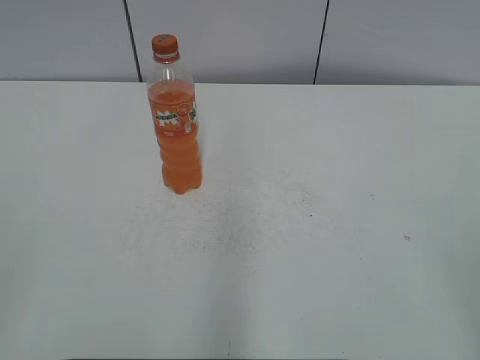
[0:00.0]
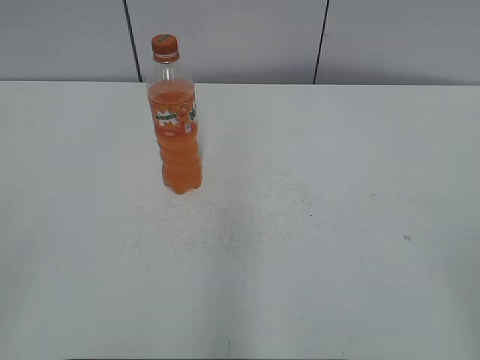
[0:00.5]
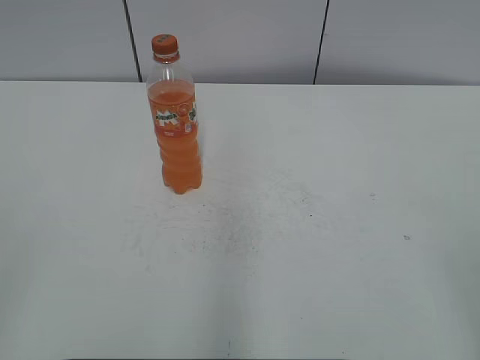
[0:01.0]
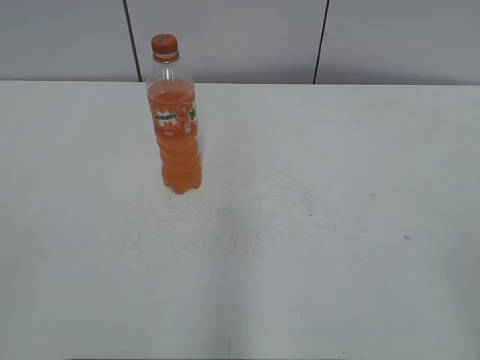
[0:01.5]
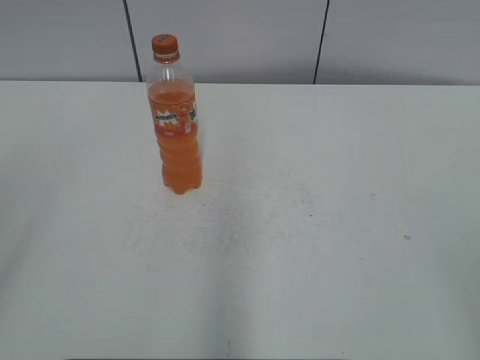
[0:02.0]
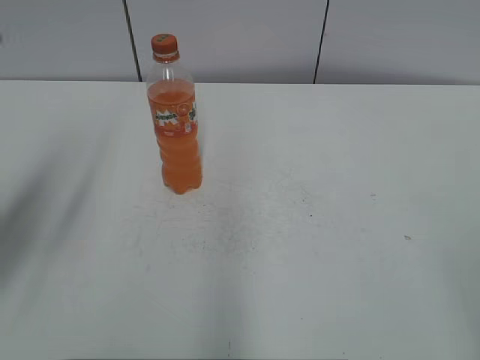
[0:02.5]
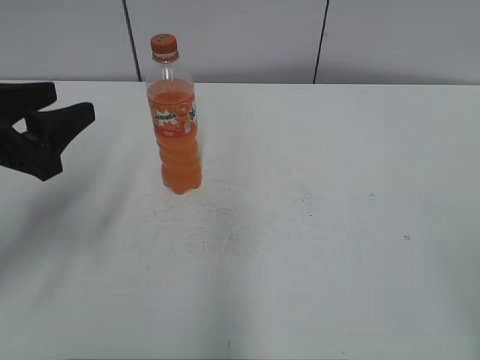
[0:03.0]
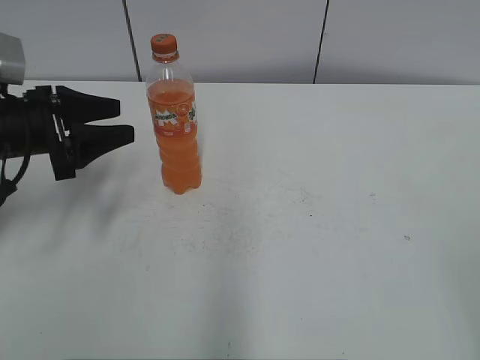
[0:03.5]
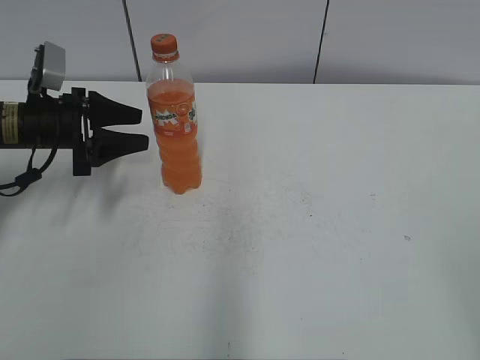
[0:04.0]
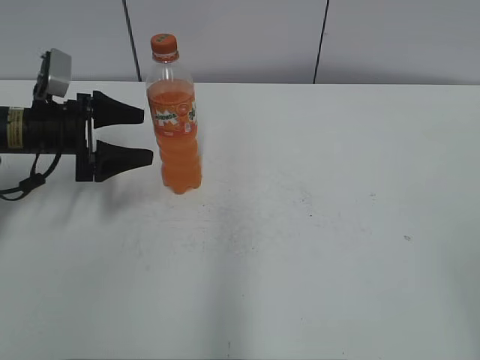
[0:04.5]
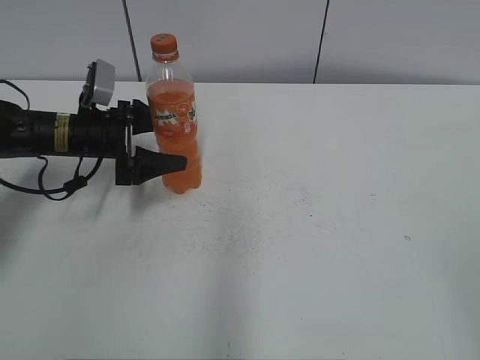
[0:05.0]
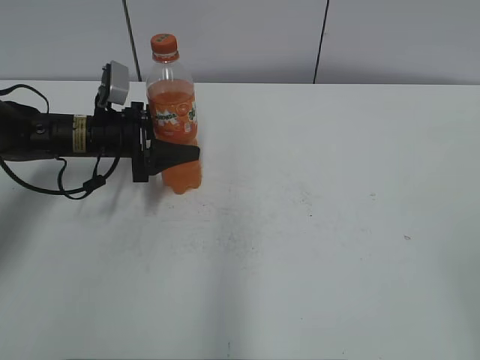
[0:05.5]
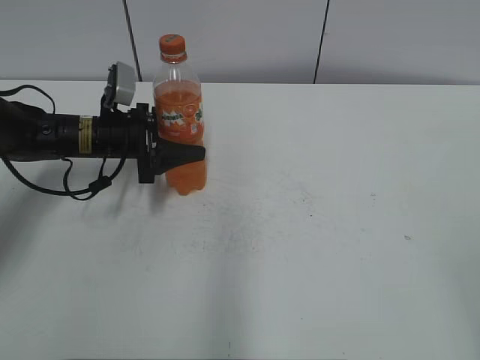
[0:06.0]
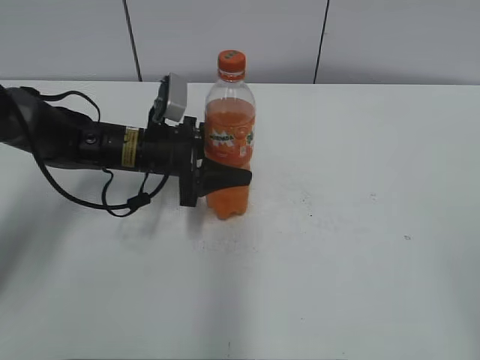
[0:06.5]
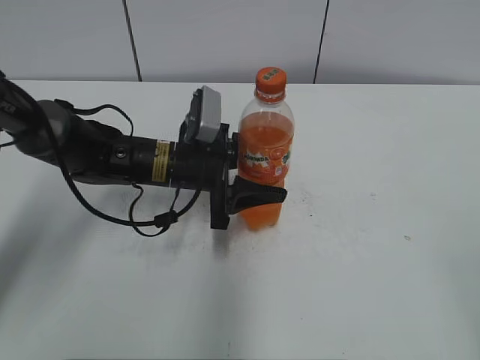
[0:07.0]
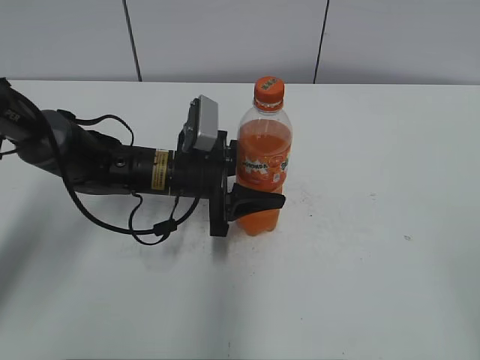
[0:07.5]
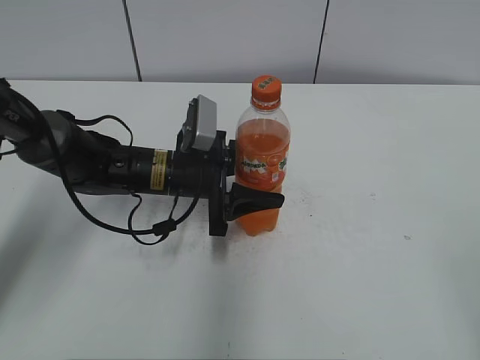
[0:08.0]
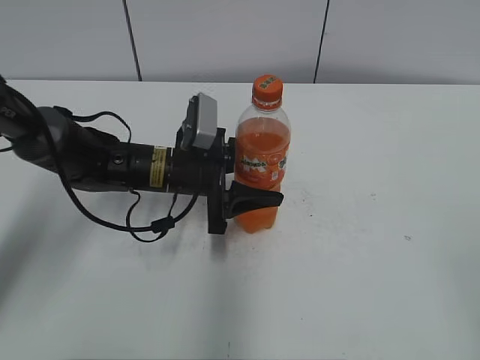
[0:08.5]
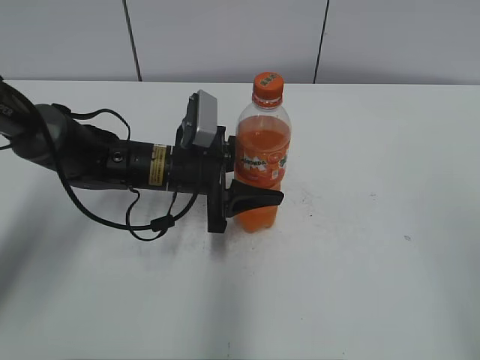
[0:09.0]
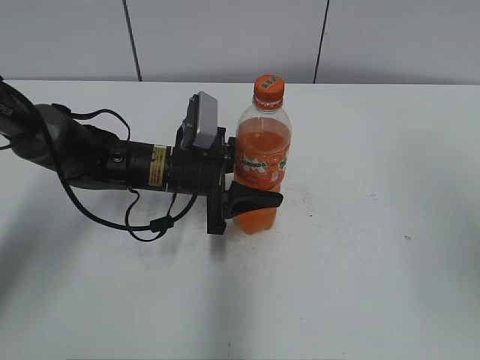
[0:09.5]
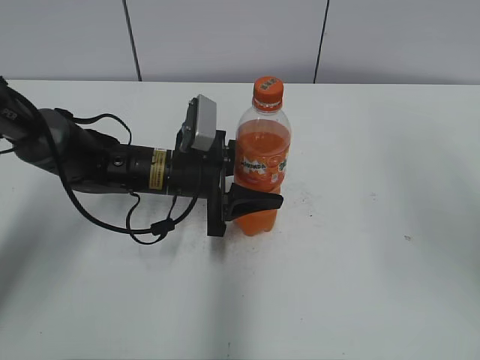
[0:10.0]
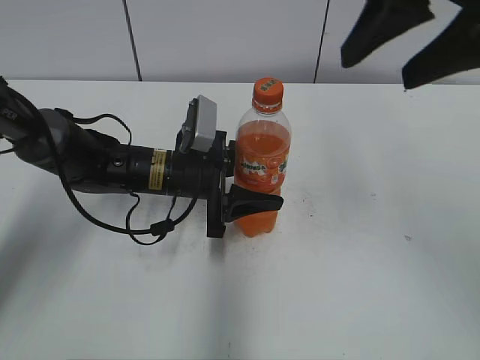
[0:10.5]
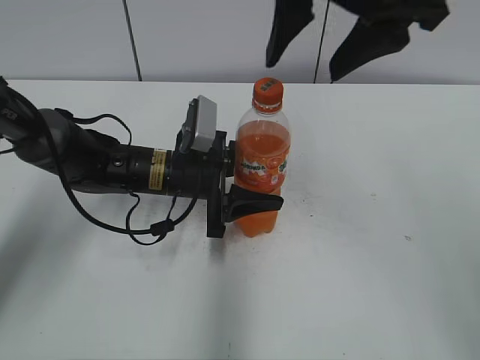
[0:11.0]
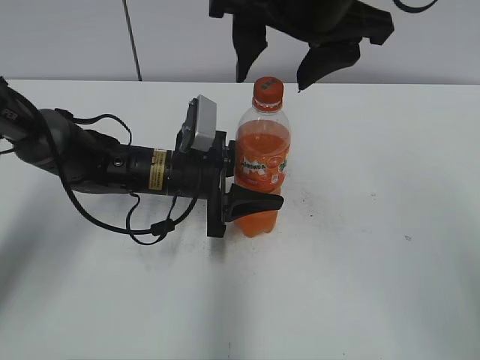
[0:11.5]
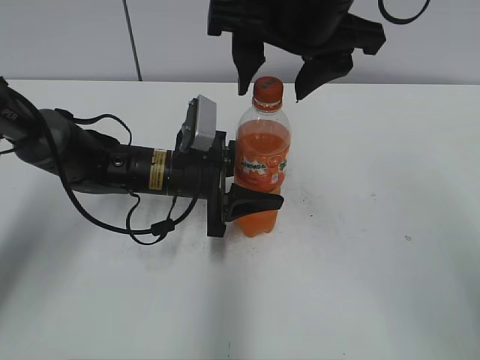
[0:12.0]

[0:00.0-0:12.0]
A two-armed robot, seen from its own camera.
Step, 0:00.0 to 0:05.0: Grab the Mirinda with the left hand.
Step, 0:05.5 to 0:06.5: Move the Mirinda from left to right.
0:02.0 to 0:04.0: The left gripper travels forward and downward by some 40 cm.
0:04.0 to 0:06.0: The left gripper is displaced to the right by approximately 5 cm, and opens and closes again.
0:06.0 to 0:08.0: The left gripper goes some 10 cm to the right and backward.
0:08.0 to 0:10.0: The right gripper moves forward and upward, approximately 20 cm.
0:10.0 to 0:12.0: The right gripper goes roughly 25 cm to the left and forward.

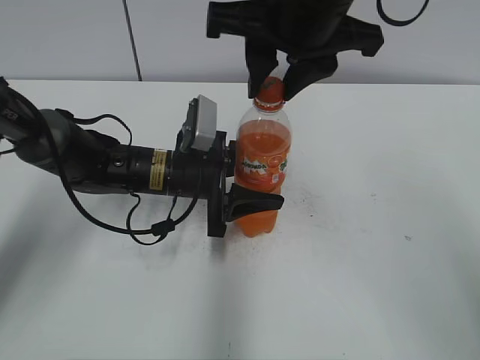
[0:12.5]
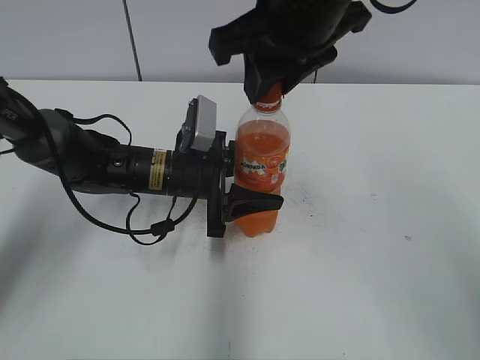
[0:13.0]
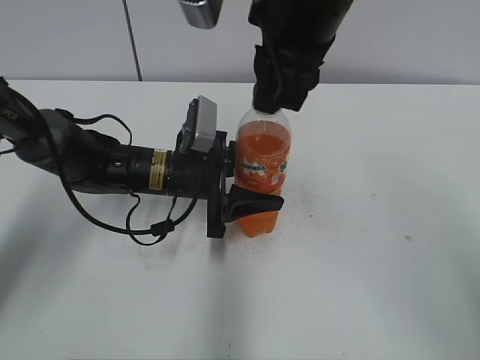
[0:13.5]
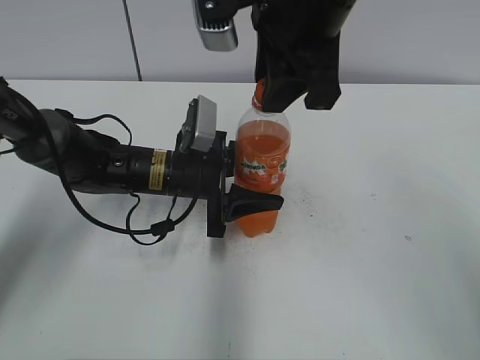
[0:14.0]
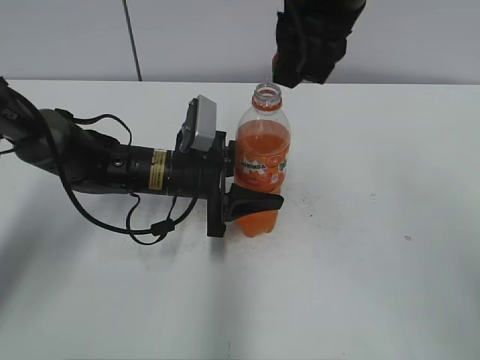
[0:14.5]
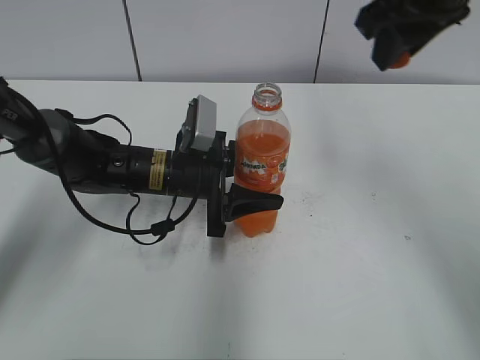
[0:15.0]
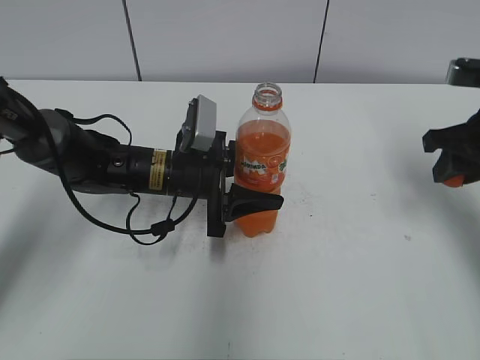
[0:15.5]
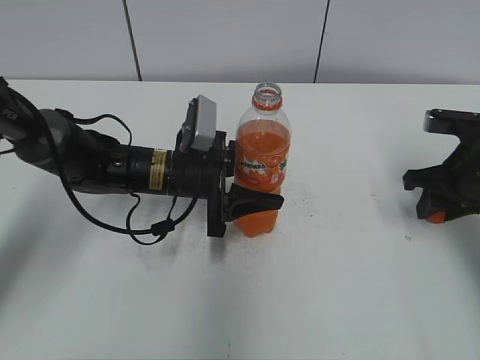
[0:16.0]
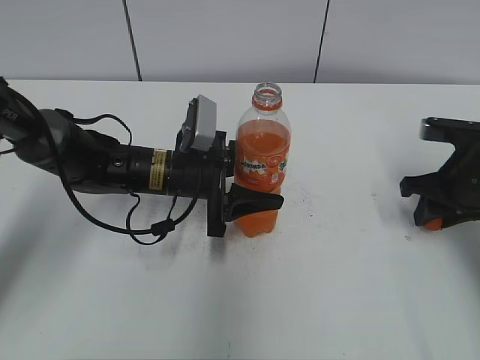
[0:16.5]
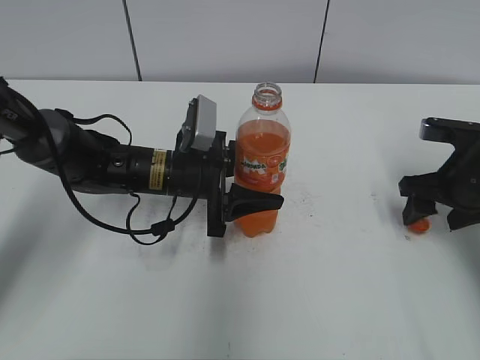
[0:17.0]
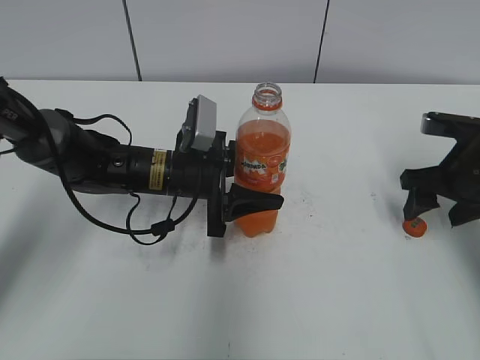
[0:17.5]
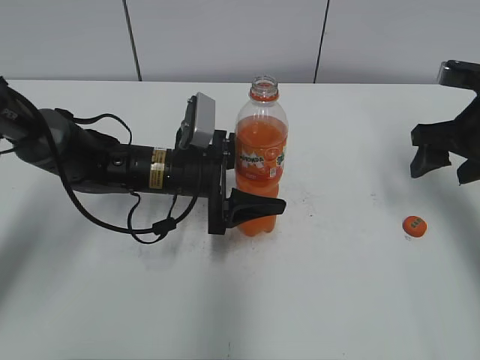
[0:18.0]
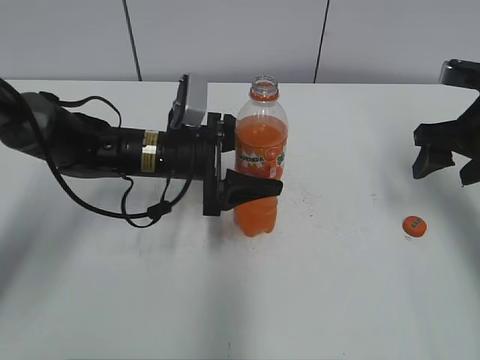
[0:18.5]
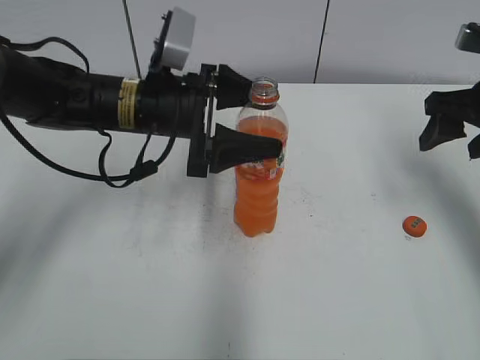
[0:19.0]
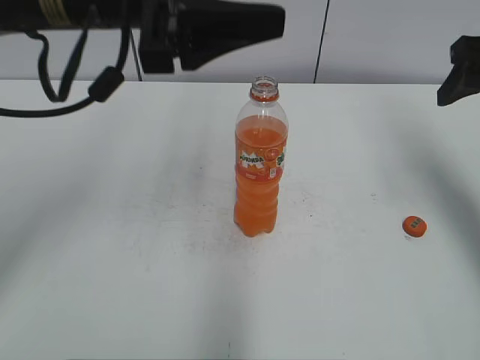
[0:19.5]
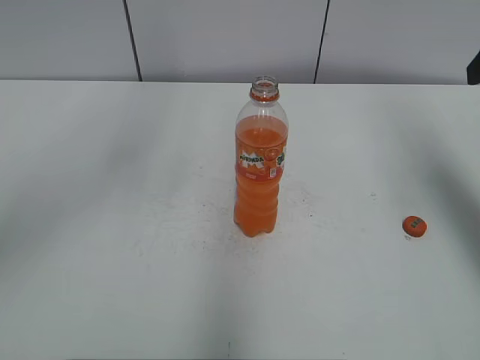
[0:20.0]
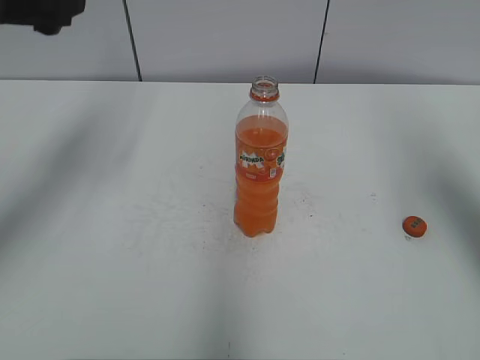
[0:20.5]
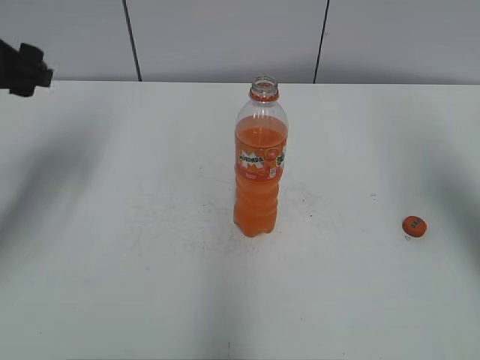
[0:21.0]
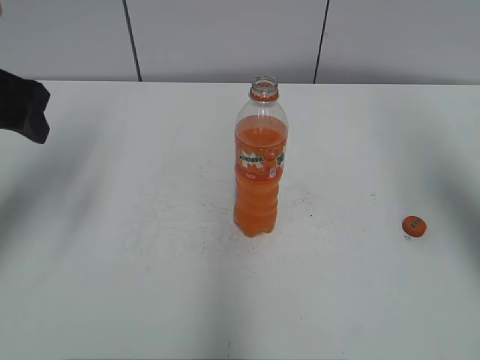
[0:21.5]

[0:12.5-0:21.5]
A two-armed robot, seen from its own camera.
Step, 0:14.5 to 0:16.5: Place the bottle cap on the right.
0:14.5 to 0:17.0: The right gripper moves downward and to the right, about 30 cm, and opens up.
0:17.0 to 0:19.5: The grippers both shift upward by roughly 20 cm. The left gripper opens.
0:19.5 to 0:21.5: The right gripper shifts some 10 cm upward and backward. The left gripper travels to the left by about 15 cm.

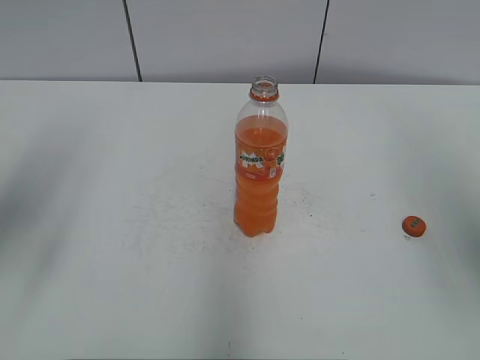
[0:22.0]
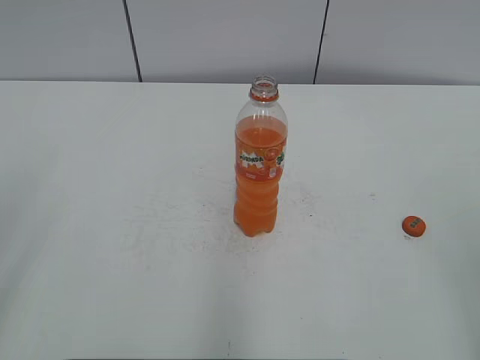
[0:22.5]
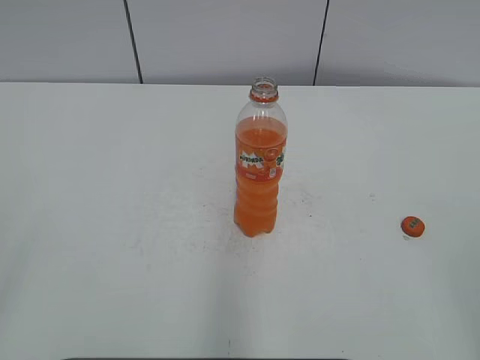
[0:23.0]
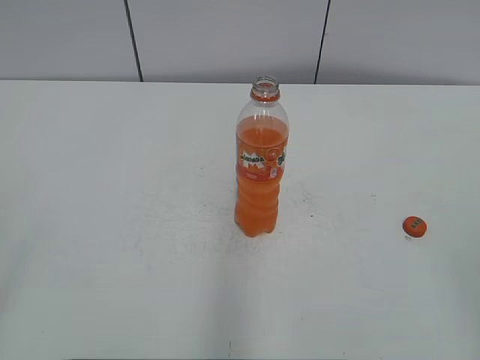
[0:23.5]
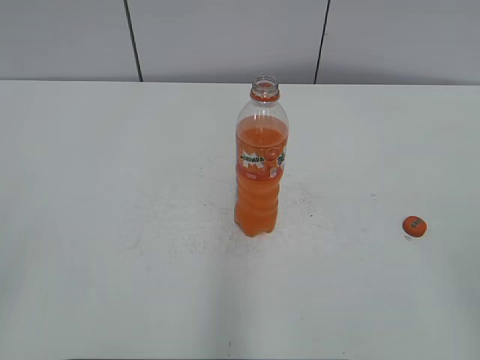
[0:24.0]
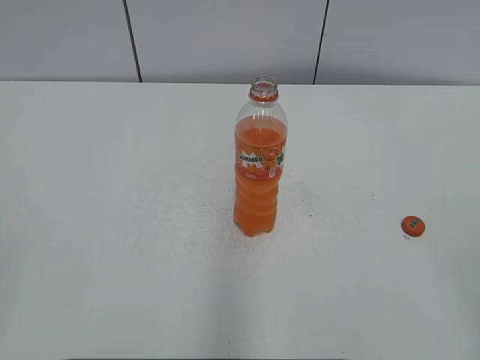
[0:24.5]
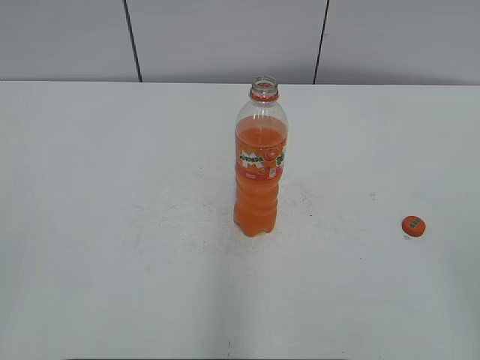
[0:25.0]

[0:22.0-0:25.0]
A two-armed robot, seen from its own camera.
0:22.0 to 0:23.5: The right gripper heads backward and downward, covering some 20 cm. Meanwhile the left gripper is displaced backward by some 25 cm.

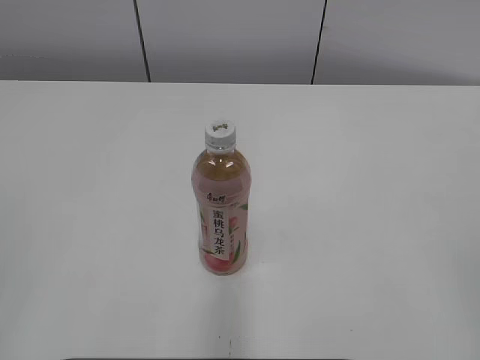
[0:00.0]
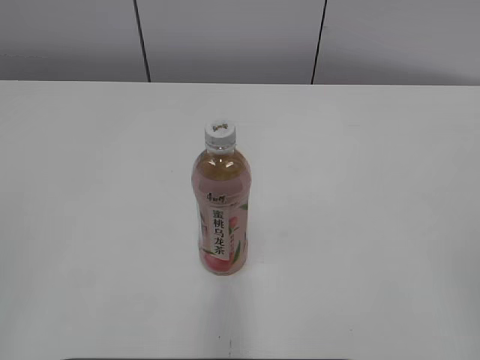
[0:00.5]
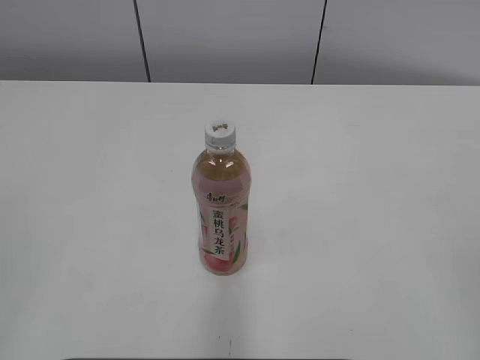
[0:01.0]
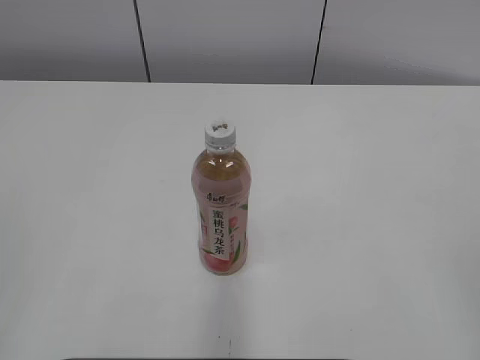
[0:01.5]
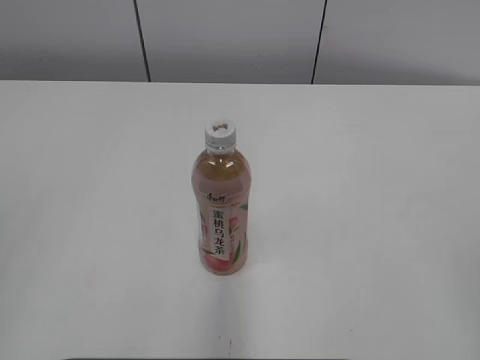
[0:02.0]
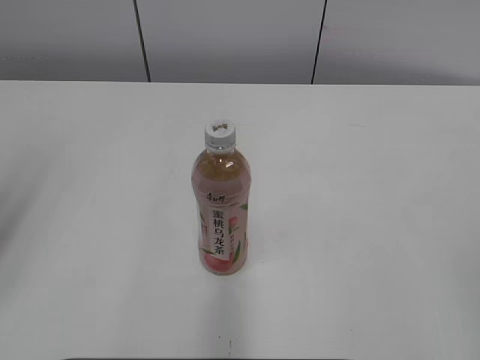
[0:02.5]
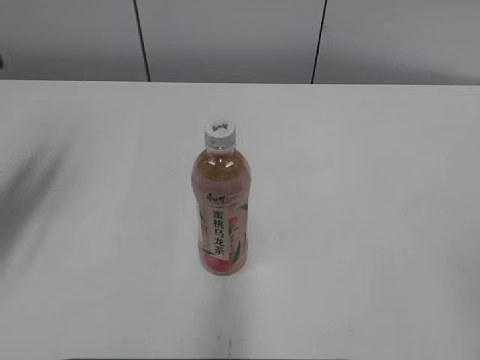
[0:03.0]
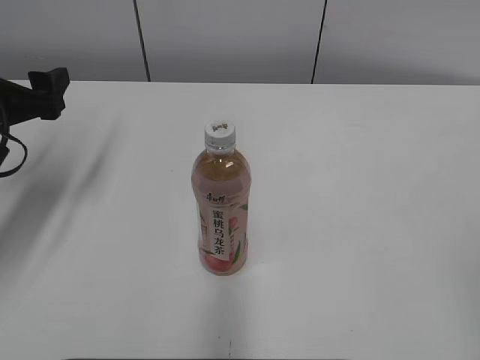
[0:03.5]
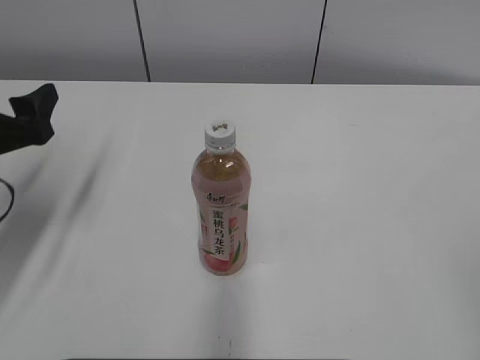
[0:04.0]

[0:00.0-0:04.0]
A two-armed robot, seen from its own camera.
0:02.0 to 0:04.0: The left gripper shifts roughly 30 cm forward and downward, and opens up.
